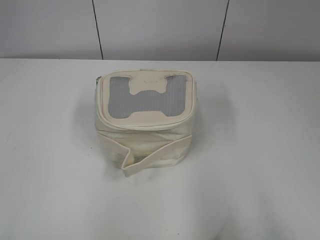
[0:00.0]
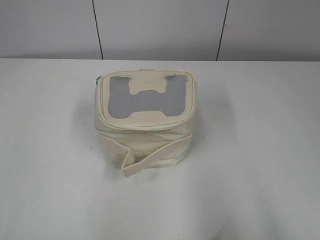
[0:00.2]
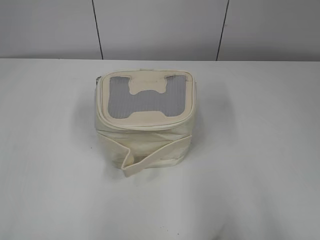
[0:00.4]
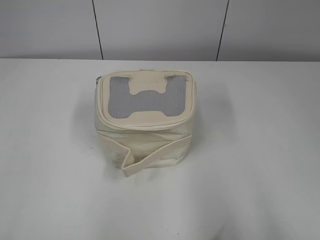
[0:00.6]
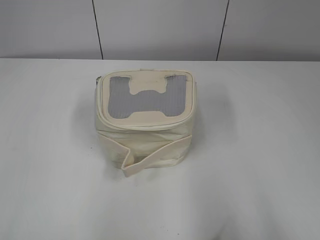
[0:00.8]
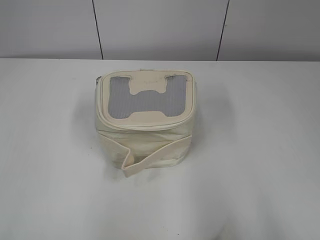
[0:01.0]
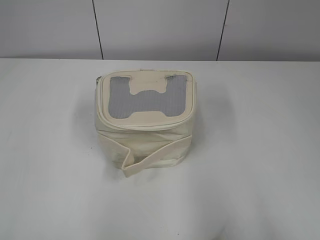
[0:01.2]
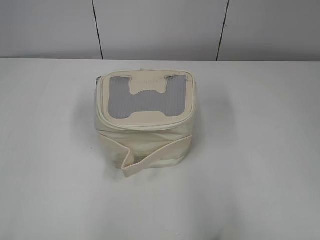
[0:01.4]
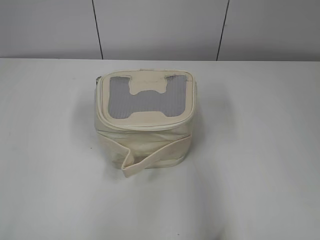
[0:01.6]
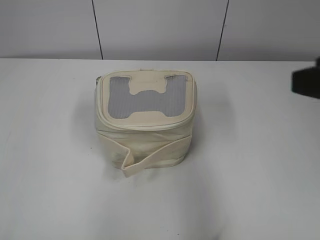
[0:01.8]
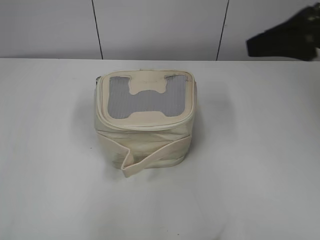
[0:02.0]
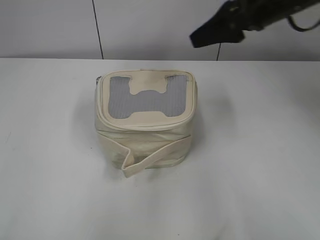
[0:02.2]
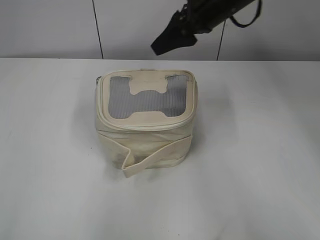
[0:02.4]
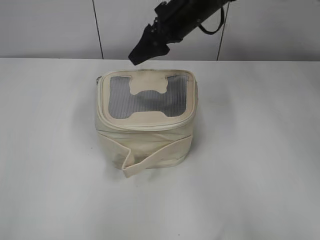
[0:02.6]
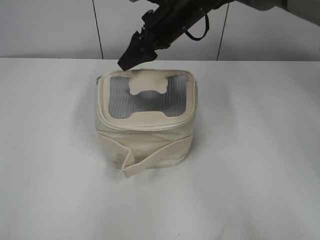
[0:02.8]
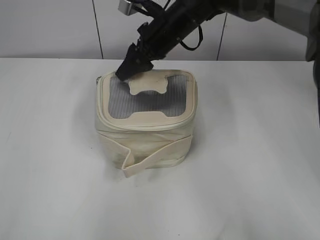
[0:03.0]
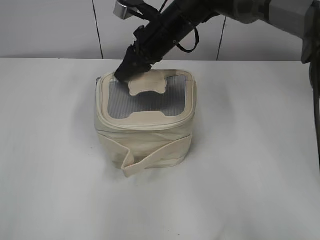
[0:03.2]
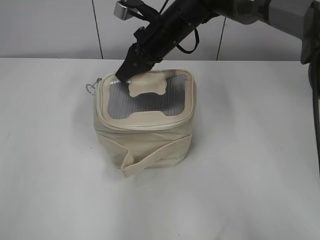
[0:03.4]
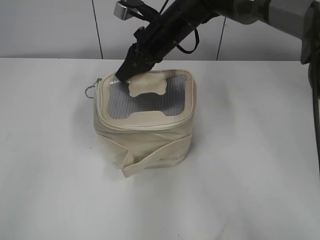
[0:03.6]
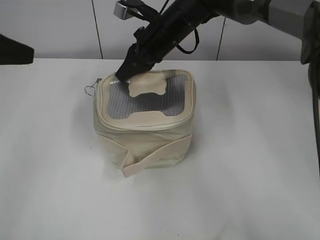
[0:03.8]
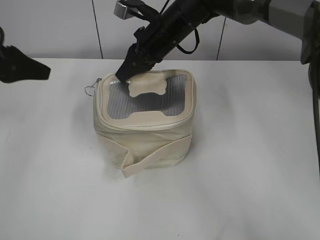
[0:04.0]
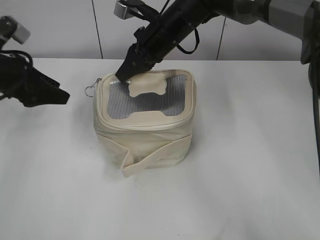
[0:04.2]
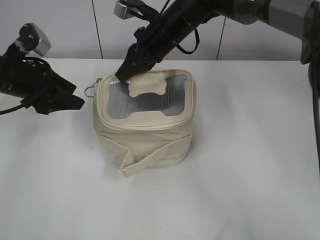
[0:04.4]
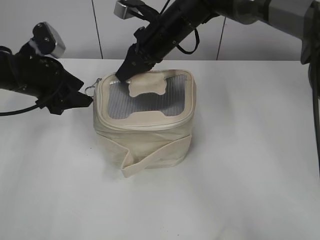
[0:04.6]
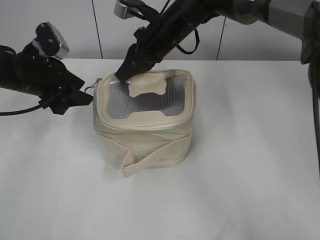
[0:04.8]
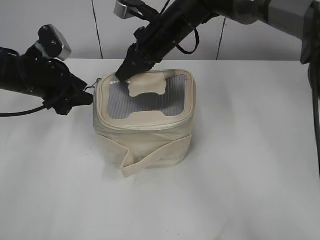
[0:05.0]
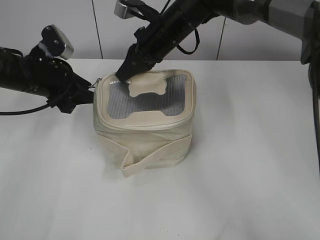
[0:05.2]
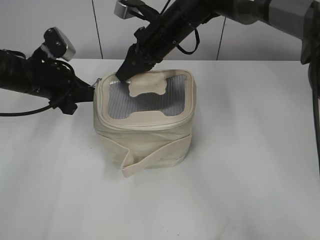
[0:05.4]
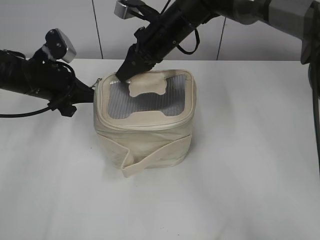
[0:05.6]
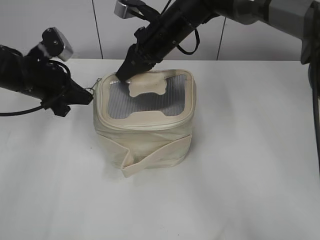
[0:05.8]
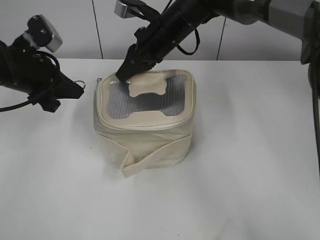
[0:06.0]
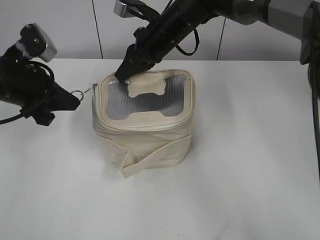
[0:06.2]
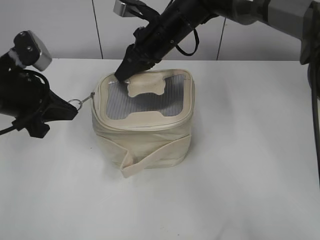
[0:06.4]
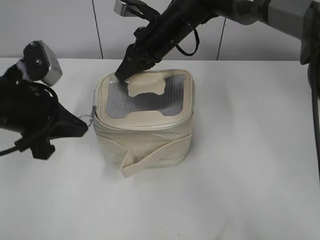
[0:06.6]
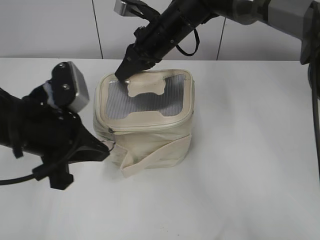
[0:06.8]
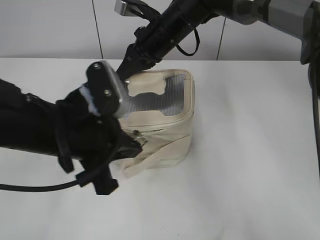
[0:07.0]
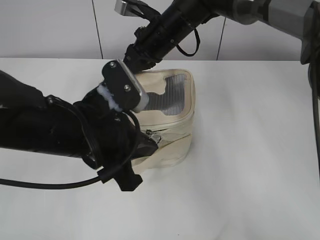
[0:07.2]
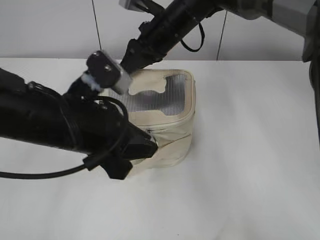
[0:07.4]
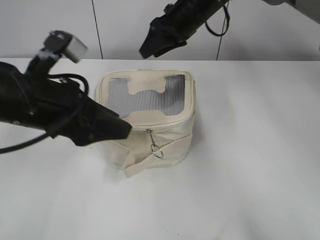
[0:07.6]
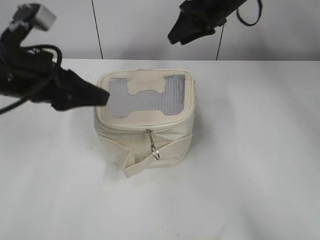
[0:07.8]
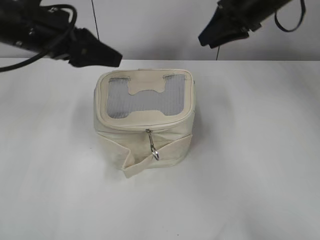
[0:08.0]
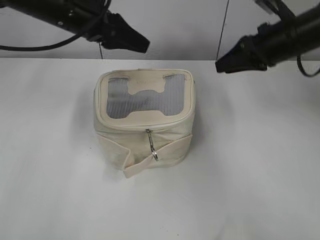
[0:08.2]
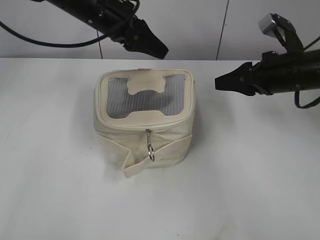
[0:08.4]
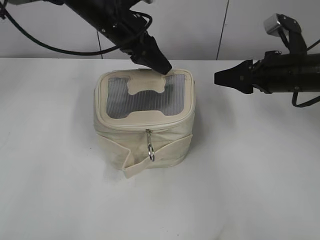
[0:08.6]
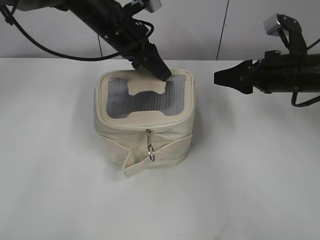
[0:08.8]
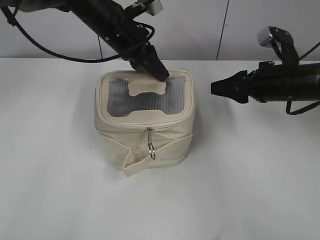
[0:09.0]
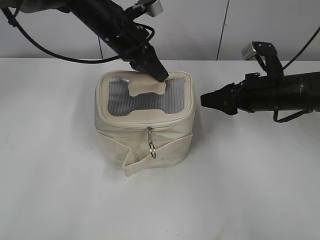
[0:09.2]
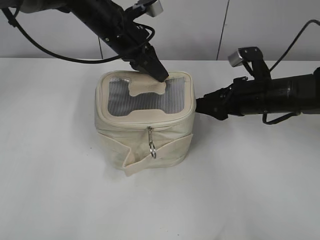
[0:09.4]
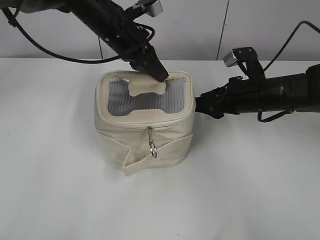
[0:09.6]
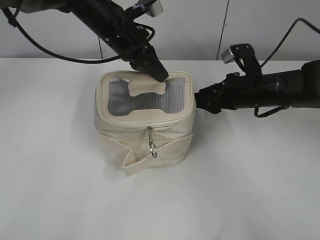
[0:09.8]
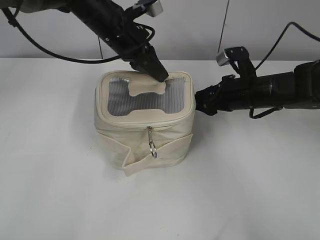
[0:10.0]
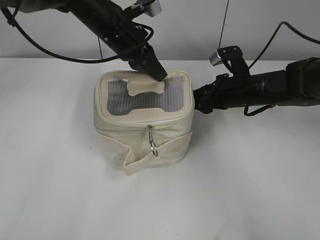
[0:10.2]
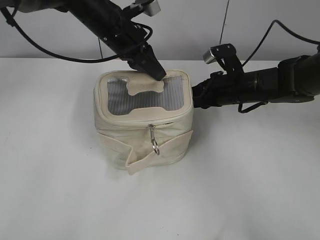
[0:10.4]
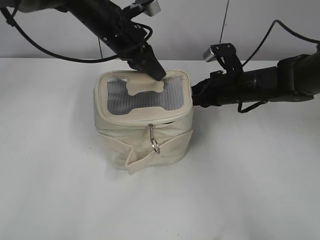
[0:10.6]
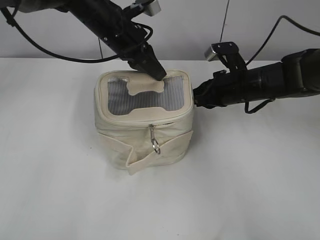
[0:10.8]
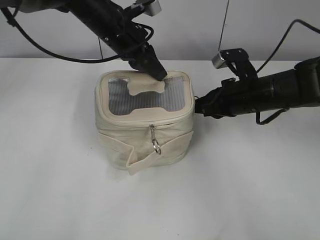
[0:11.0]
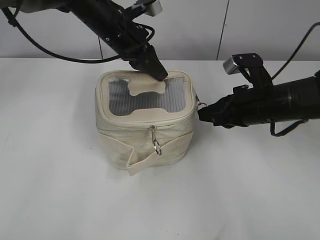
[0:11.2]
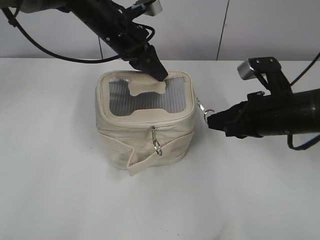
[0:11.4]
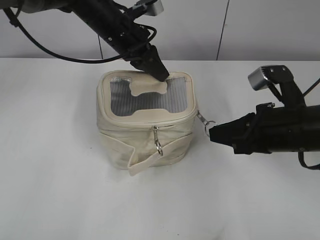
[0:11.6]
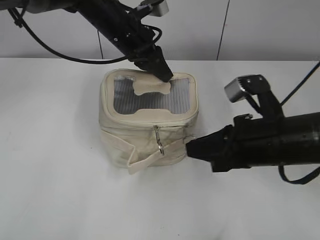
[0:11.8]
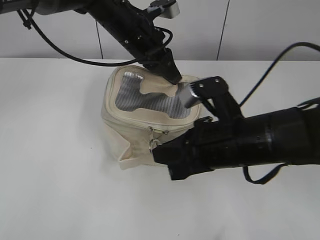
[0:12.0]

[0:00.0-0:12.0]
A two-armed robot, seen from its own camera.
Step, 0:00.0 to 0:07.4: Zip up the bag with your left hand.
0:01.6 to 0:03.0: The right gripper moves forward and to the left, about 50 cm.
0:03.0 to 0:04.4: The right gripper closes its fingers, while the left gripper heads forward, covering approximately 35 cm, and opens.
0:04.4 to 0:06.0: The left gripper closes up.
0:06.0 to 0:07.6: The left gripper shifts about 15 cm backward and to the right, and opens its fingers. The right gripper opens.
0:07.6 to 0:09.0: The left gripper goes about 20 cm forward. Meanwhile the right gripper is displaced to the right and backward by about 20 cm.
0:09.0 to 0:10.4: The right gripper shifts some 10 cm to the left and downward, and closes up. Meanwhile the left gripper closes up.
0:10.4 to 0:12.0: The right gripper is displaced backward by about 20 cm, and closes its fingers.

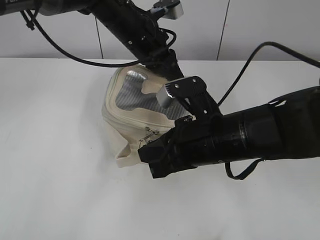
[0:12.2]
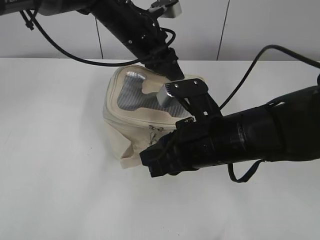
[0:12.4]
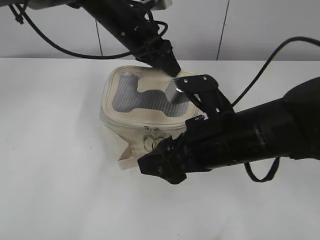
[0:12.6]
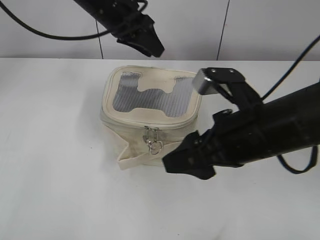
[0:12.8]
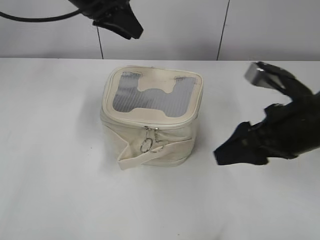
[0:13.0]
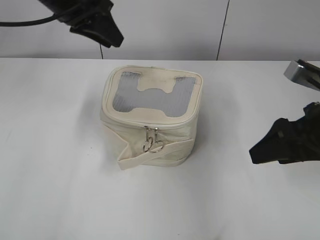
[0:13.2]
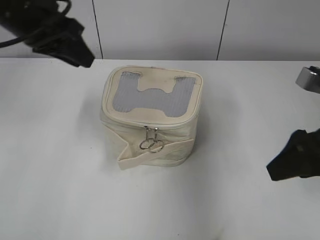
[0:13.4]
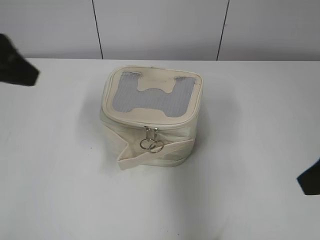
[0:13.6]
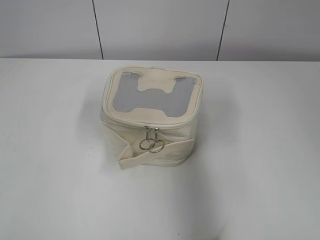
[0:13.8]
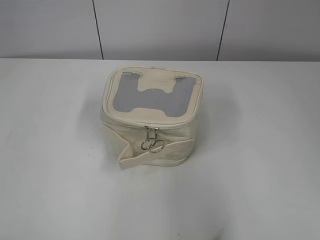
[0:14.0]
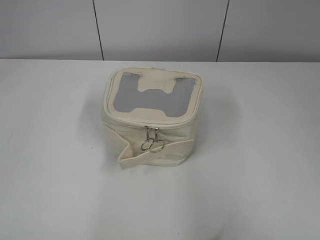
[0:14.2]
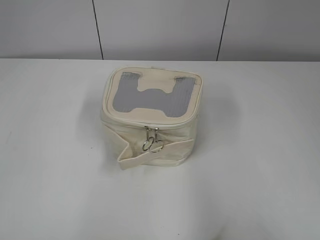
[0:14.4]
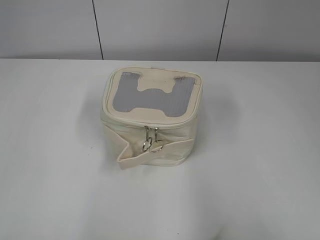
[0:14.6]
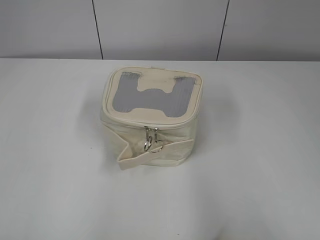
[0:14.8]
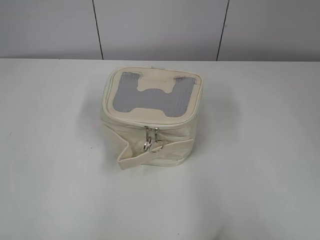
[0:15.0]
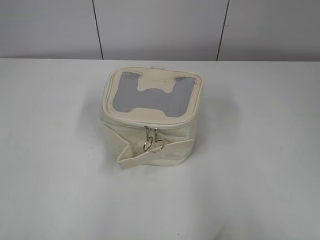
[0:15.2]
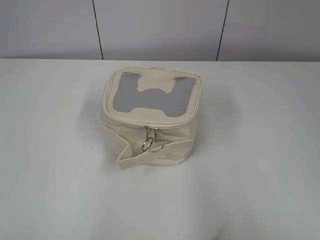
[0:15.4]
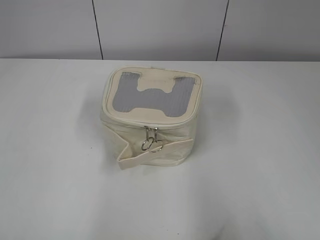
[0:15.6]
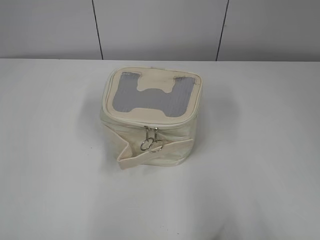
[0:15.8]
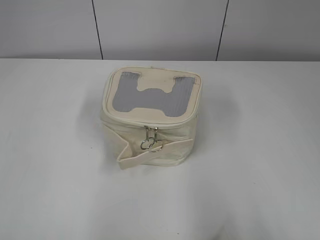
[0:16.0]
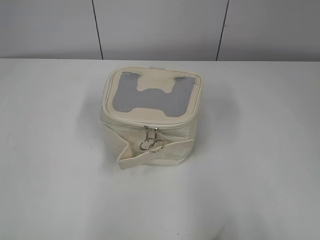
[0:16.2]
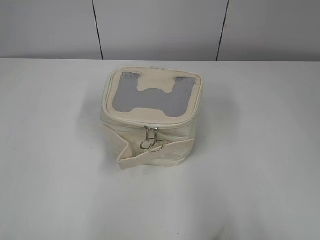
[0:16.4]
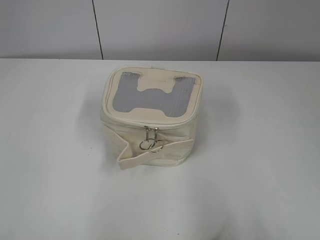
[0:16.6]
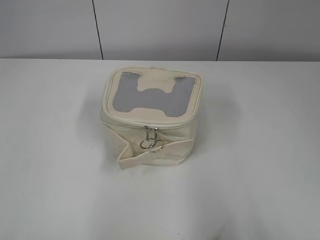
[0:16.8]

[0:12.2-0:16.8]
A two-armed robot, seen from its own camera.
0:12.2 to 0:13.8: The left gripper shifts some 40 cm backward, to the left and upward, and opens, while the right gripper is displaced to the right, upward and backward by about 25 cm, and opens.
0:13.8 to 0:15.2: The grippers both shift backward by some 15 cm.

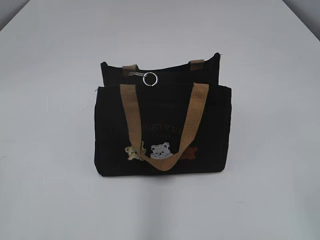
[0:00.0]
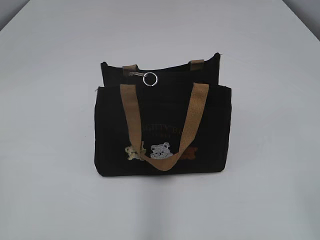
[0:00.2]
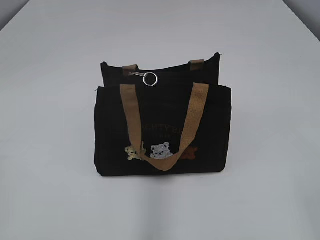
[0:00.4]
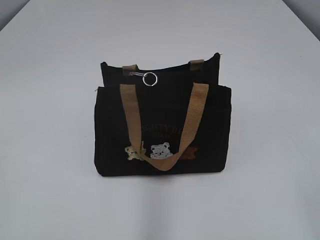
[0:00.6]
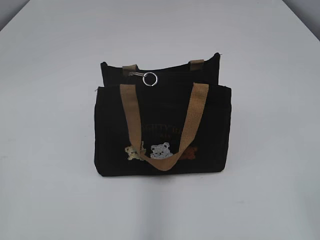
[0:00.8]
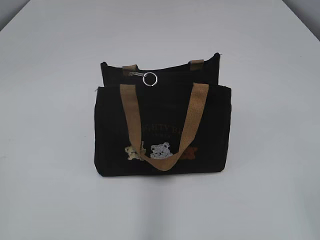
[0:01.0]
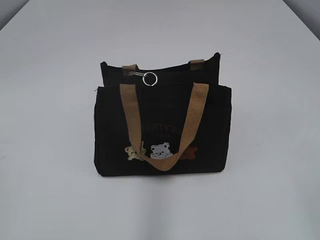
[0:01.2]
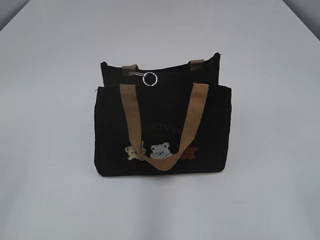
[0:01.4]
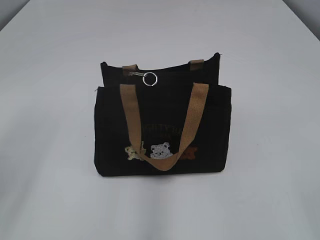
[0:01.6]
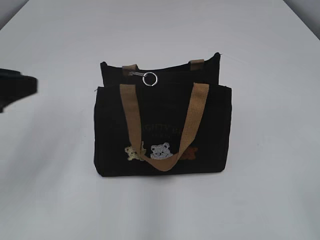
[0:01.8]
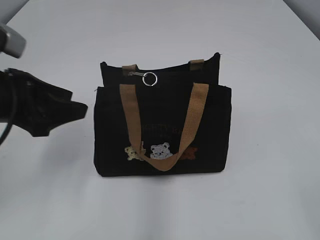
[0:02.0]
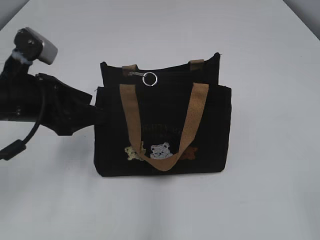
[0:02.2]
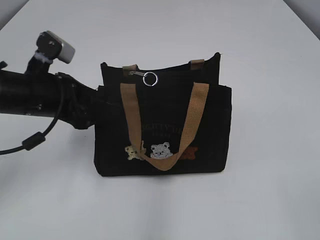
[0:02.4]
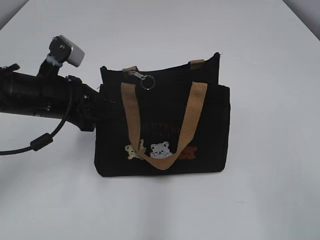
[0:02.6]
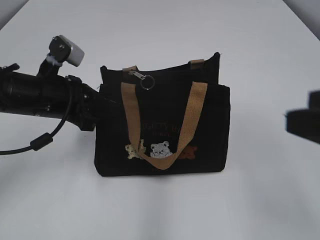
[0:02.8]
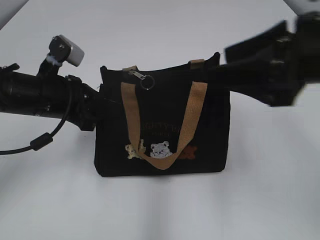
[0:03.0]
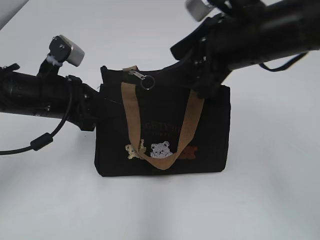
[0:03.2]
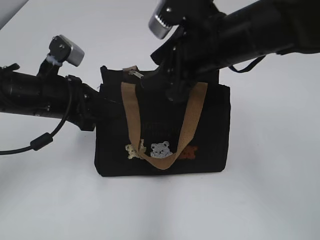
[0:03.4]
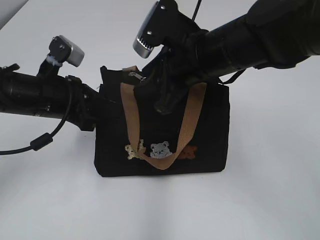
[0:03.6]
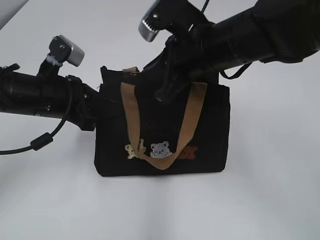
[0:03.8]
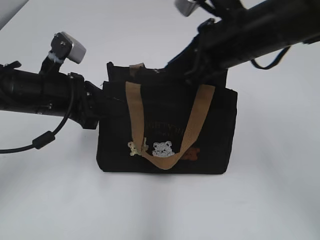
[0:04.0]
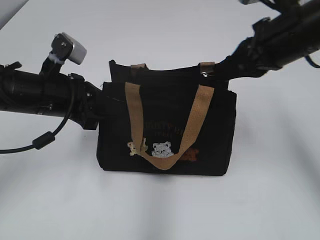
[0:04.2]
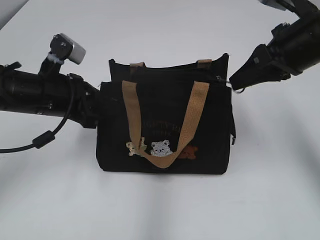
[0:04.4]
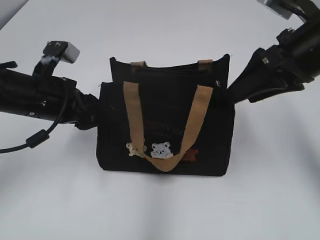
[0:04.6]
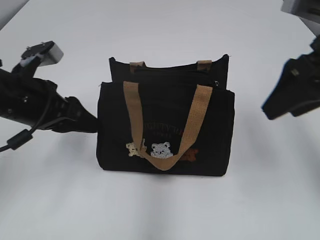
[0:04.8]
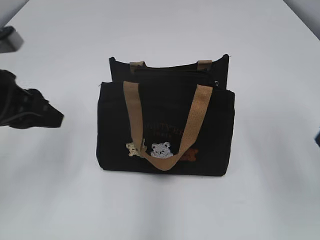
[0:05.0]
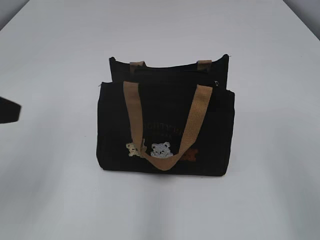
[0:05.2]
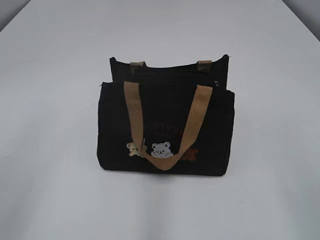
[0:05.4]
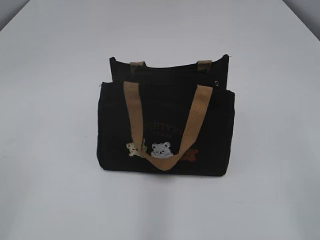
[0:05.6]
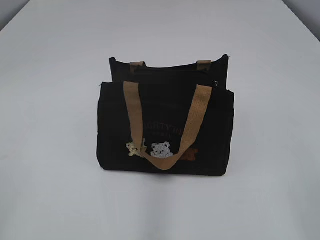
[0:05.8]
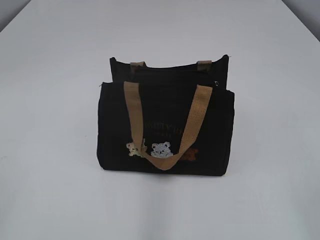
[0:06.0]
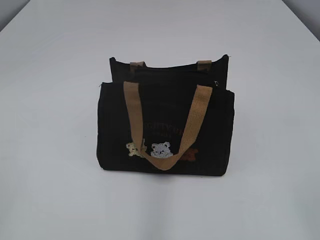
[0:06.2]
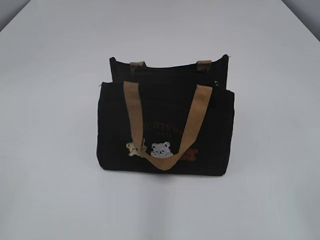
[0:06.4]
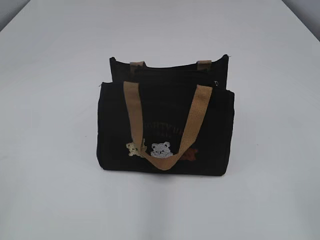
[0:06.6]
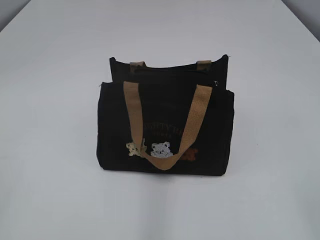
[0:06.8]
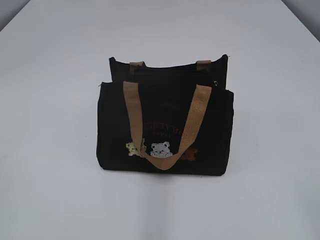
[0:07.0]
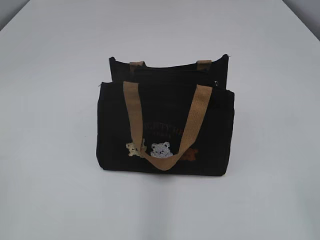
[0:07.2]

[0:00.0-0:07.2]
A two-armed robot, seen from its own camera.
Step, 0:00.0 to 0:04.4: Pull open the zipper with your right hand.
0:01.4 to 0:02.8: The right gripper travels forward by approximately 10 cm, while the left gripper travels forward, downward and to the right by about 30 cm, and closes.
0:02.8 to 0:04.4: The right gripper travels forward by approximately 20 cm, and closes.
0:04.4 to 0:05.8: The right gripper goes some 30 cm backward, and opens its fingers. Meanwhile the left gripper goes about 30 cm backward and to the left, and opens its fingers.
